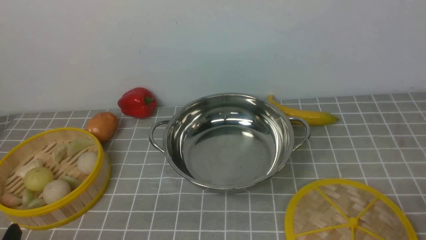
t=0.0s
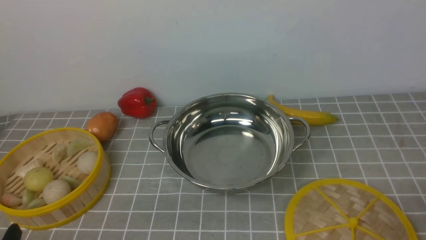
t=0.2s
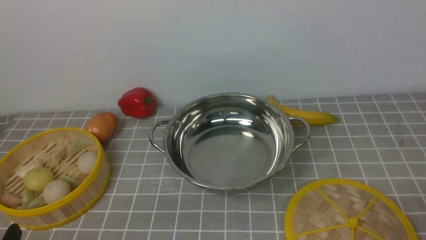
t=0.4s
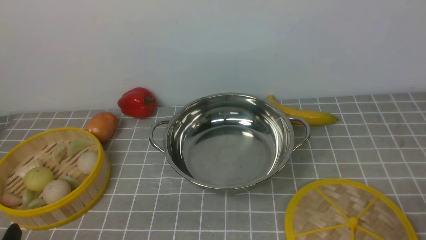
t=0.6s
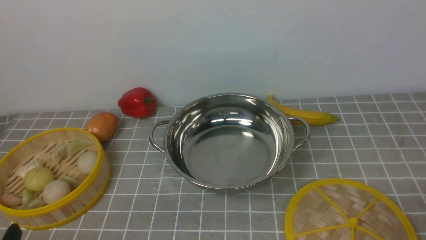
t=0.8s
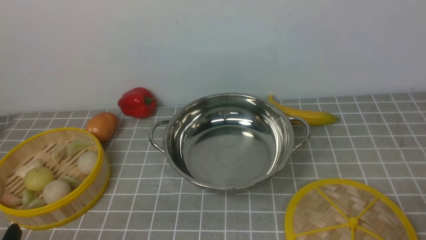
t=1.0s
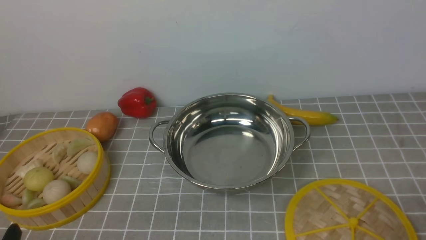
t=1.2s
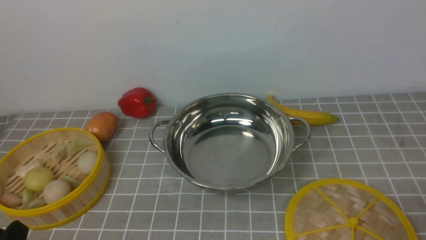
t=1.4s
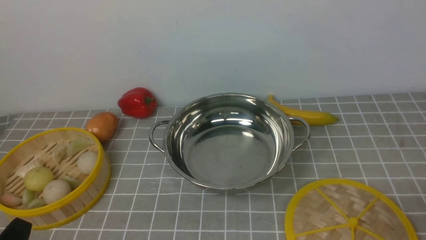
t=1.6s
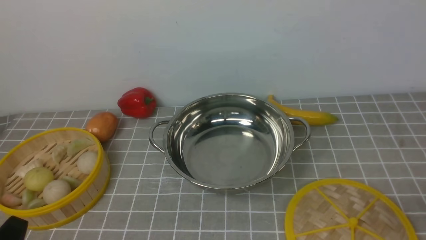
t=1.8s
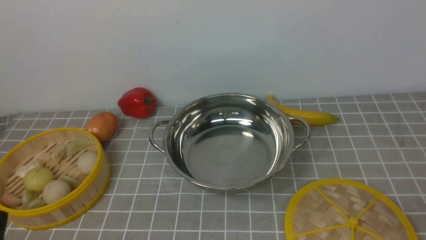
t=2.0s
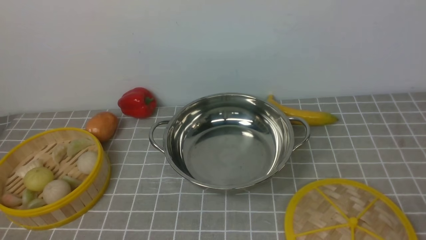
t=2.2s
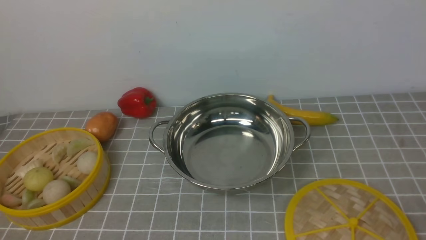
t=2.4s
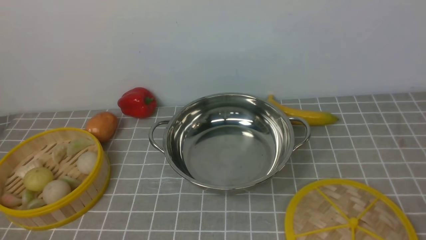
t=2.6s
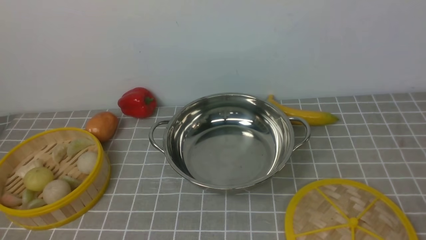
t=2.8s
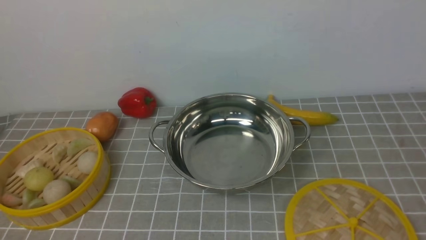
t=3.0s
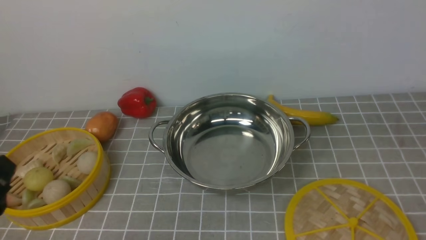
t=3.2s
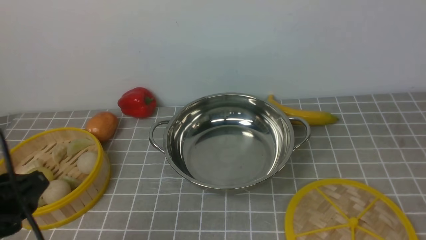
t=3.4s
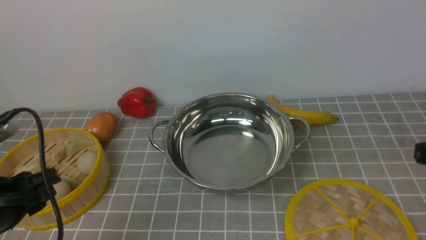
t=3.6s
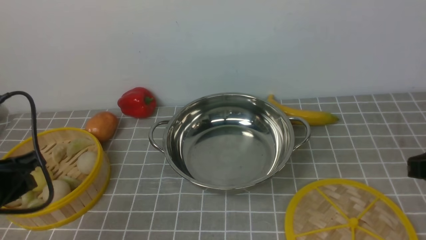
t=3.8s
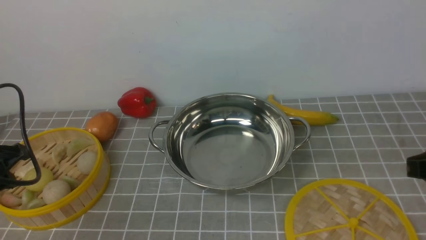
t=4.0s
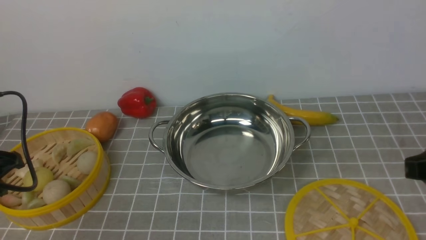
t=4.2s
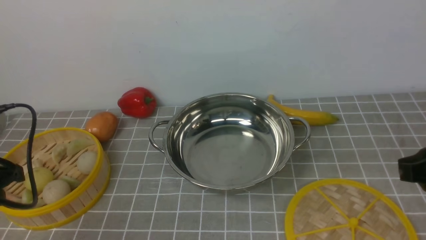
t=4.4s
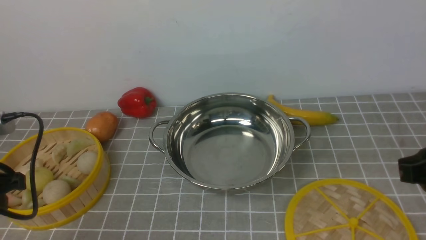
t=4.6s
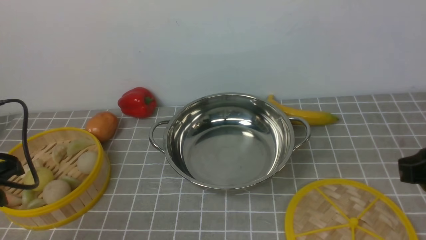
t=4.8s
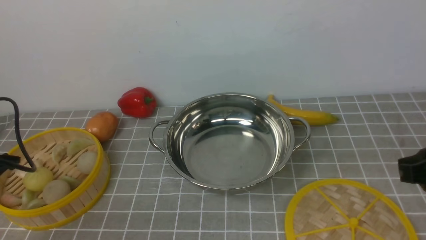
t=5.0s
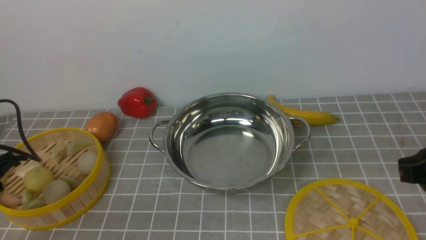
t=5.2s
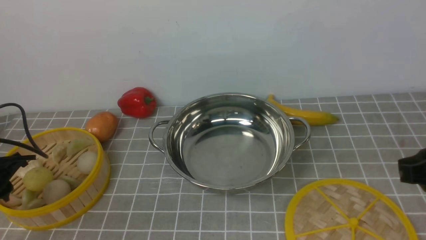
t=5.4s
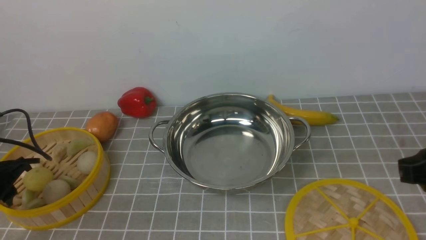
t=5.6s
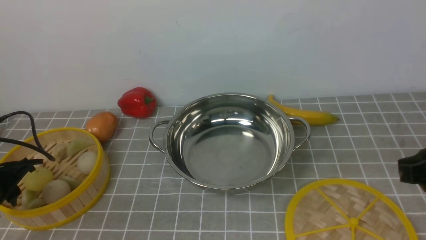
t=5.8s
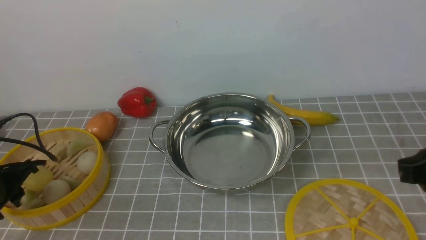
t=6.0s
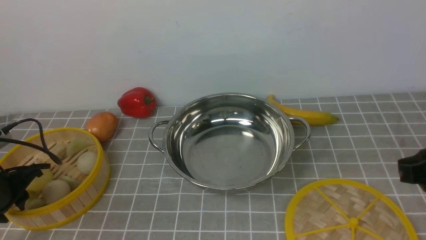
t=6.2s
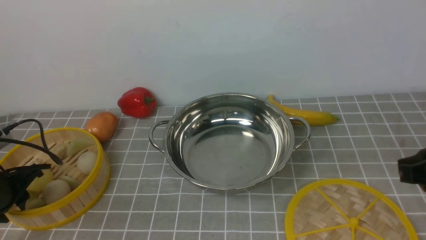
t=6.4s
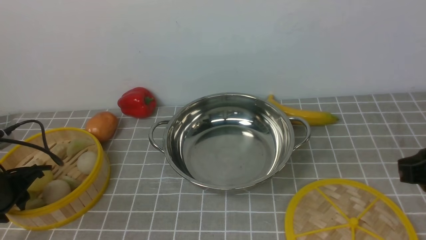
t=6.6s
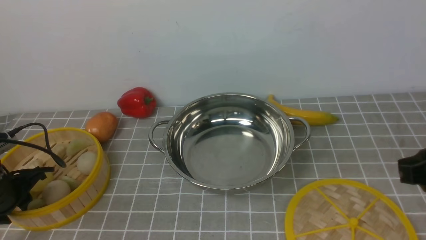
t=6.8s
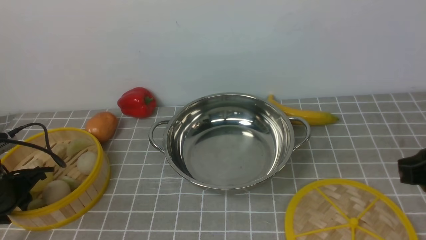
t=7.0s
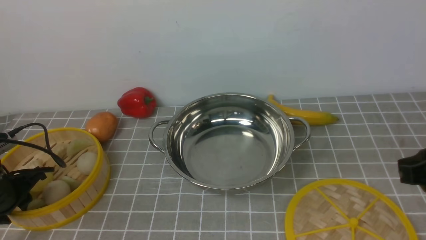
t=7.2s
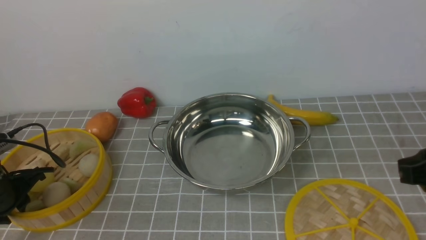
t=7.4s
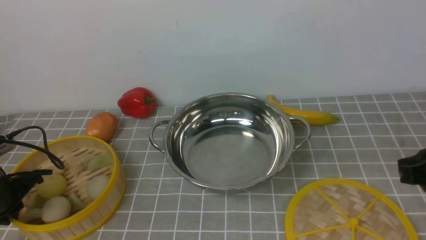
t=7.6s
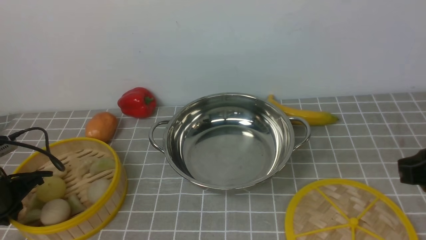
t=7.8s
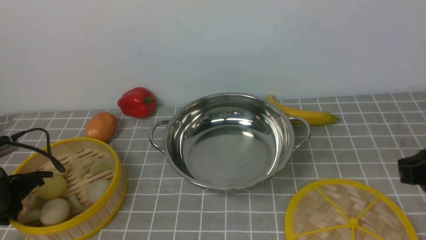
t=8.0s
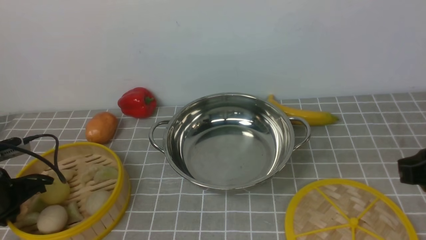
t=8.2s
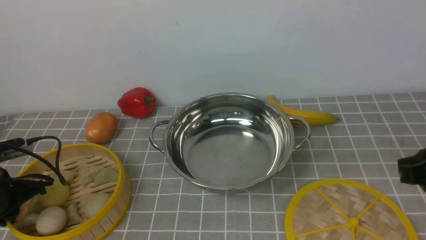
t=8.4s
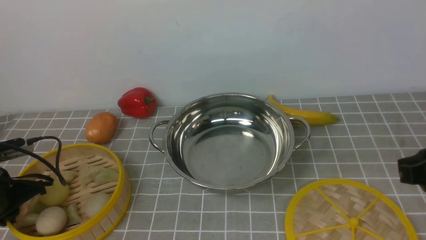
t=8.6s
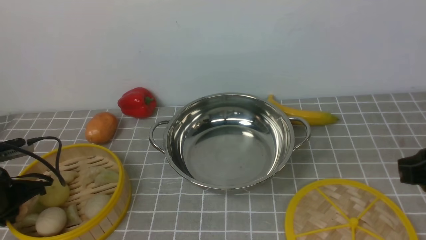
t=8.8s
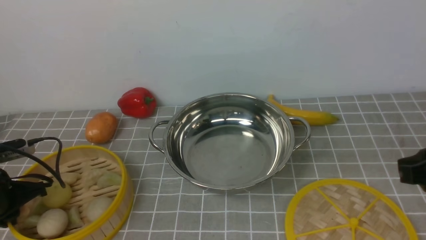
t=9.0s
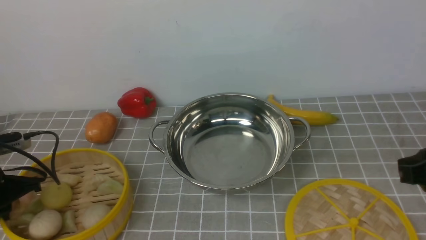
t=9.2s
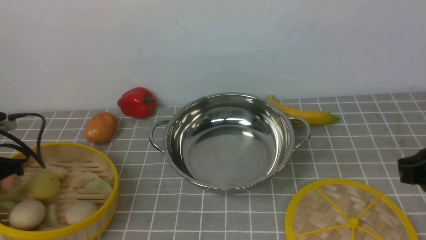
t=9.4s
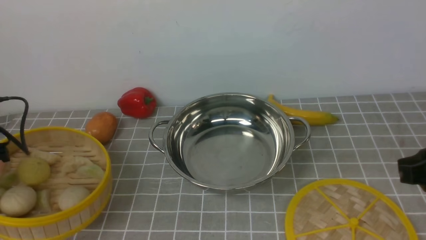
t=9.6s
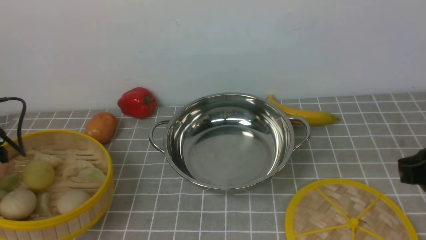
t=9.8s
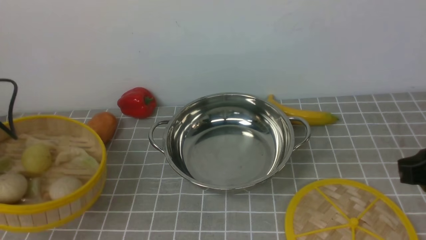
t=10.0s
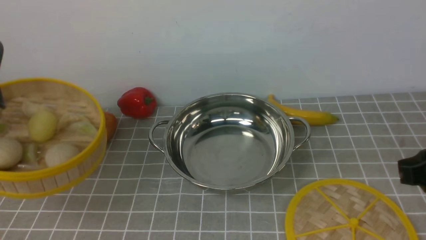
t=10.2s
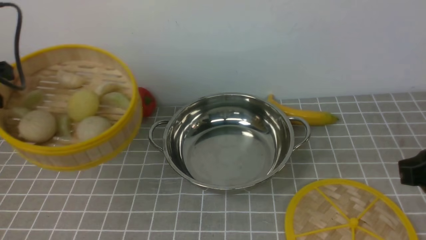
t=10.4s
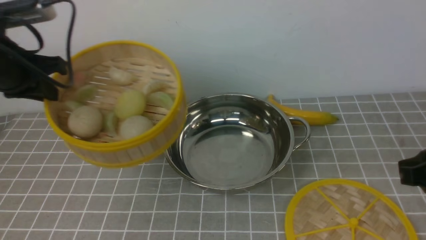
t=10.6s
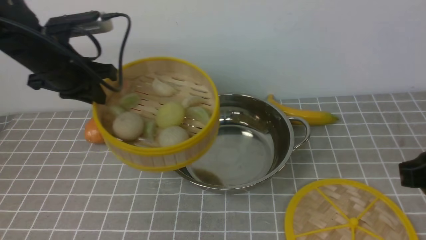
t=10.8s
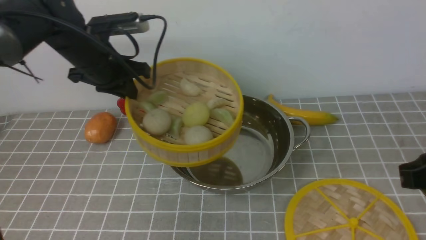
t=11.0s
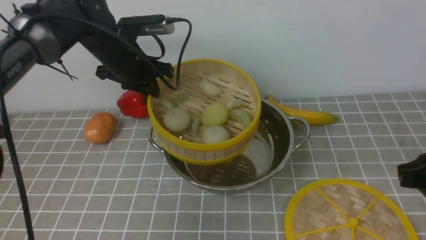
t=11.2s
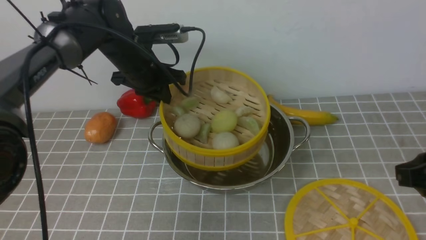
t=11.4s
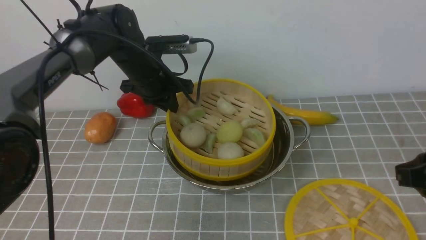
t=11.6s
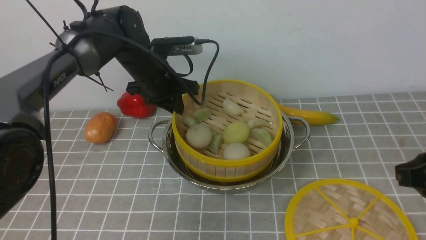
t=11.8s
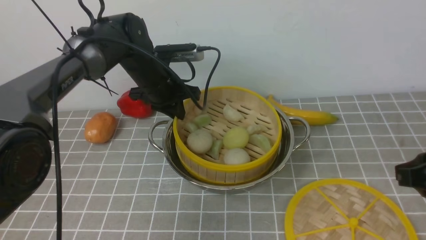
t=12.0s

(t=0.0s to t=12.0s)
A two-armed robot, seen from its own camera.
Task of the whole recording: place the steamer in the pot on the grey tablecloth, and put the lid on the steamer.
Step, t=0.0s - t=9.2s: use the left arm to lift the steamer closest to it.
t=3.0s - t=4.4s: The left gripper goes roughly 15 cm forward and to the left, while the right gripper is displaced forward by about 10 cm.
t=4.4s - t=6.0s: The left gripper shifts some 10 cm downward and forward.
t=6.0s - t=7.6s: The left gripper closes up.
t=9.0s - t=10.4s: The left gripper goes approximately 15 cm upward.
t=10.4s - t=12.0s: The left gripper shifts approximately 30 cm to the right, forward and downward.

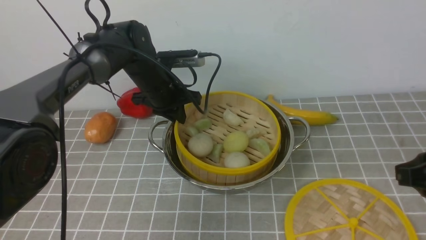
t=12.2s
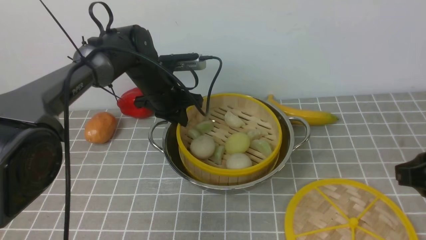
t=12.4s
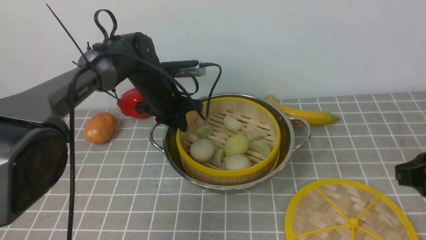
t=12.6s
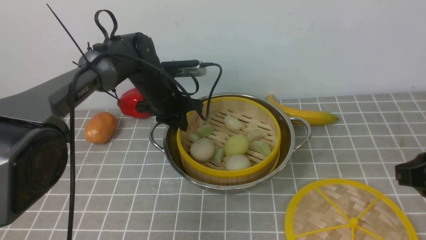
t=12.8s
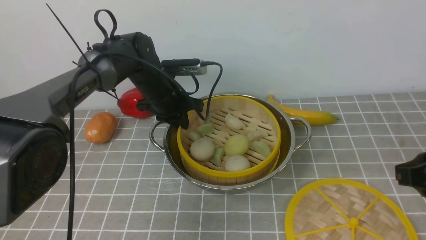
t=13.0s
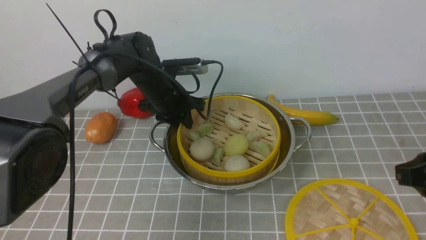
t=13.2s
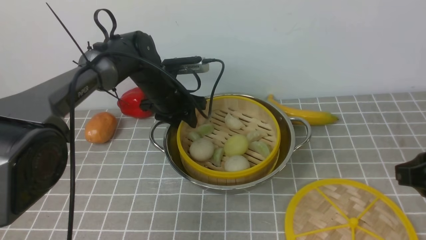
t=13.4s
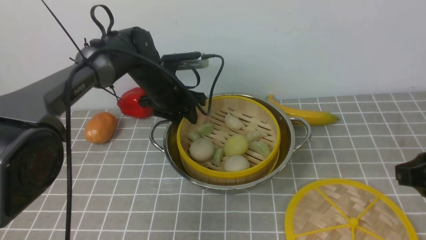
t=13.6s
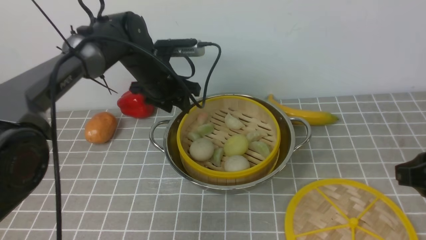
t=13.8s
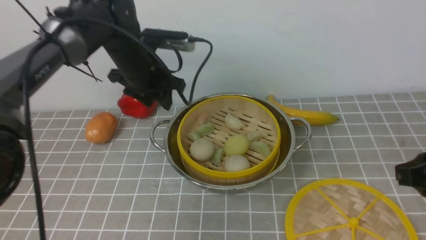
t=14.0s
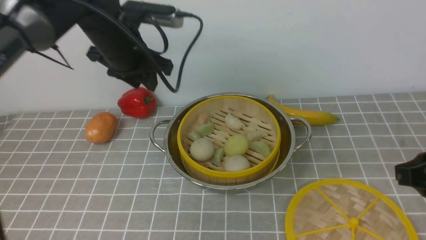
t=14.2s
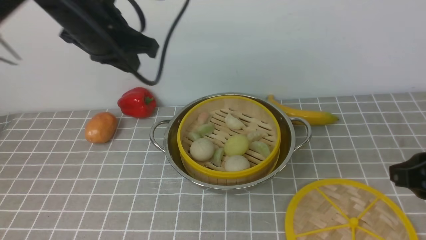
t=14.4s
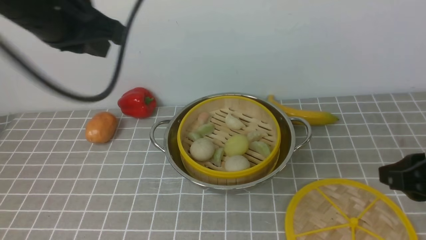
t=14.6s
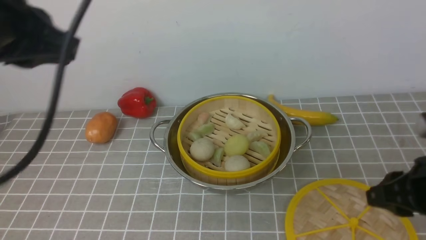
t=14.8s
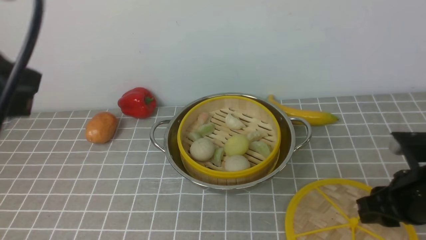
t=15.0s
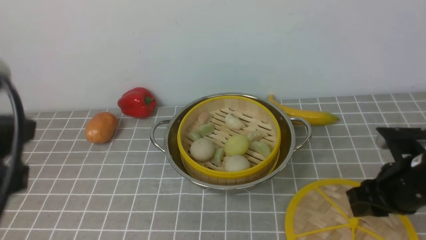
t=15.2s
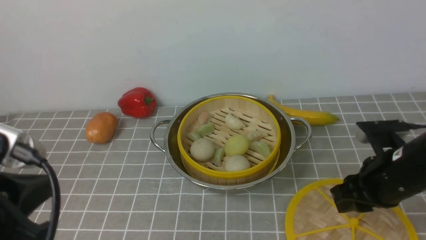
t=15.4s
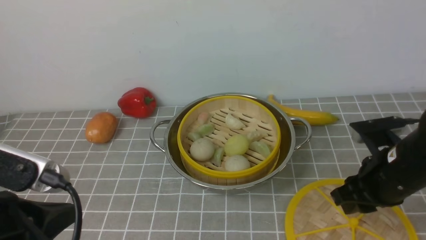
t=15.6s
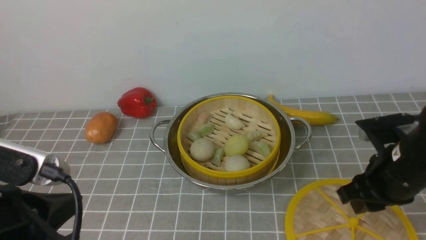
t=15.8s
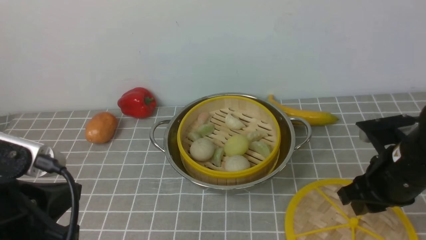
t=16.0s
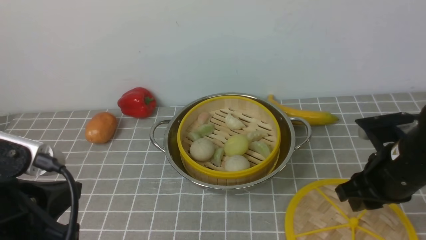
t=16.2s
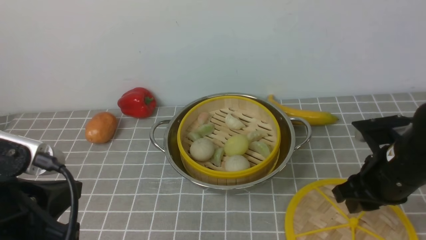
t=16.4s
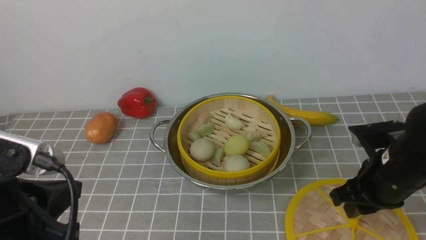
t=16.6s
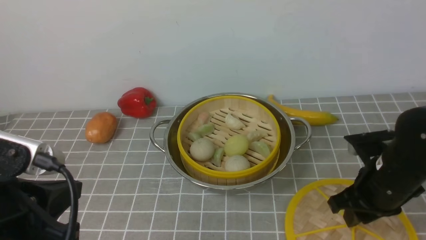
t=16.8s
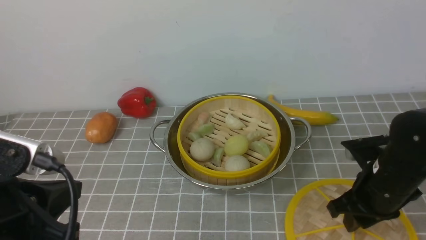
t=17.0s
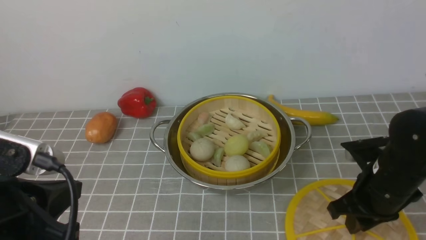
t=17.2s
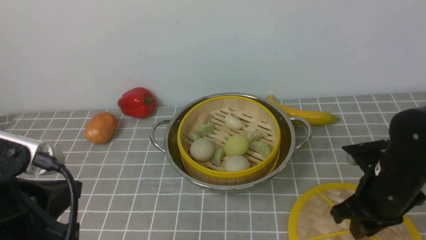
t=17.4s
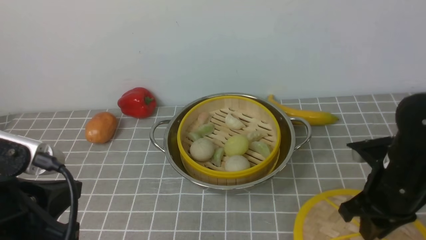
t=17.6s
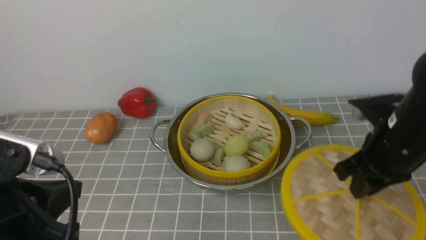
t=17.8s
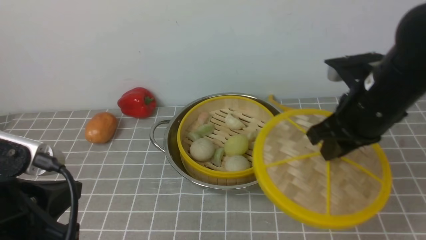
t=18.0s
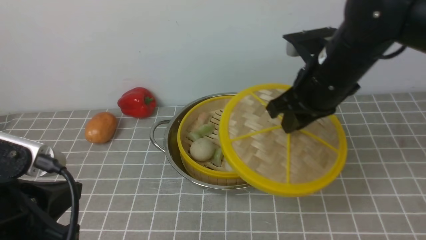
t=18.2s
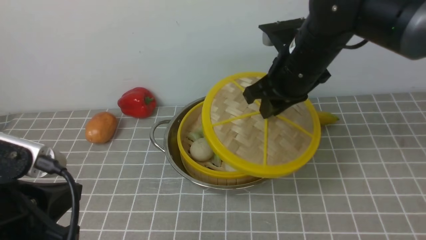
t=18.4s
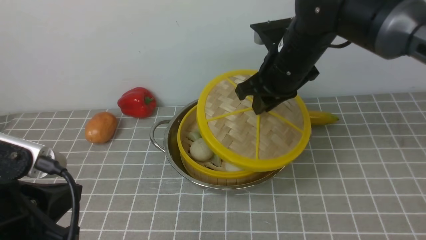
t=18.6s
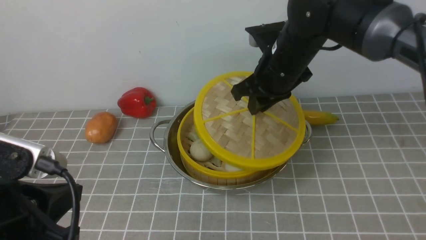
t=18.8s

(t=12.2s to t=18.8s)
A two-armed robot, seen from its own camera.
Task of the whole recording: place the steamer in the pot on the grey tablecloth, and put the lid on the steamer.
Step, t=13.8s - t=17.6s: use the right arm to lift the lid of the steamer.
t=12.2s - t=13.8s: The left gripper opens up.
t=13.8s - t=15.4s: The right gripper shifts some 10 cm downward and forward. Meanwhile the left gripper is displaced backward by some 35 cm, and closes.
t=15.4s - t=17.2s: The grippers move only a little.
t=17.2s - t=18.8s: The right gripper moves forward, to the left and upward, some 20 cm.
